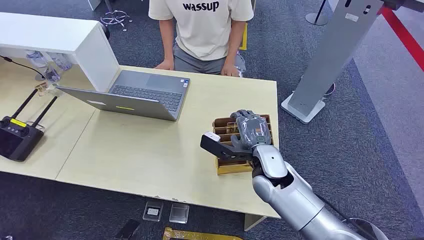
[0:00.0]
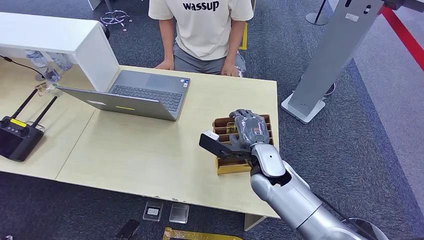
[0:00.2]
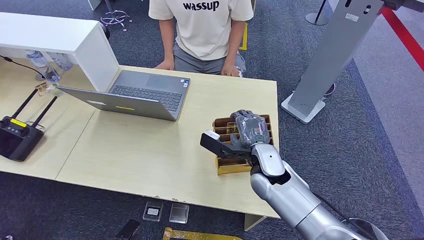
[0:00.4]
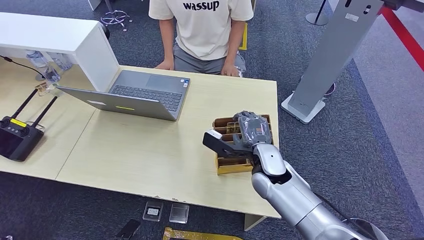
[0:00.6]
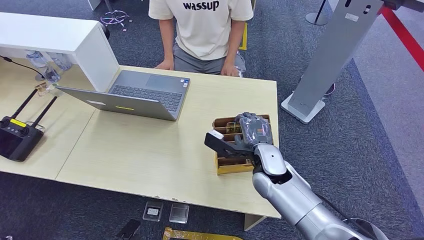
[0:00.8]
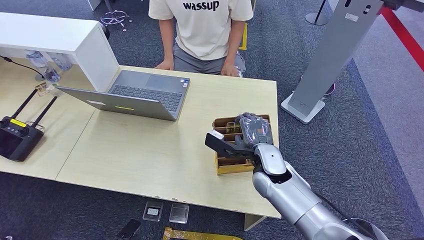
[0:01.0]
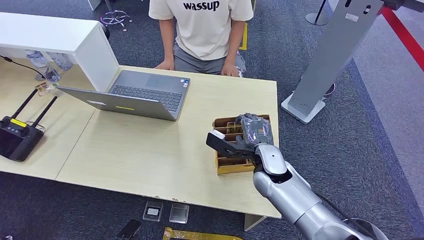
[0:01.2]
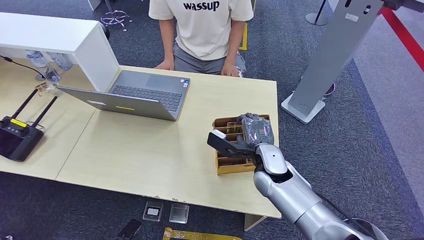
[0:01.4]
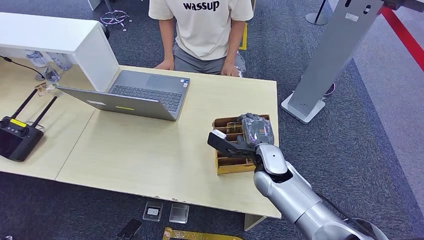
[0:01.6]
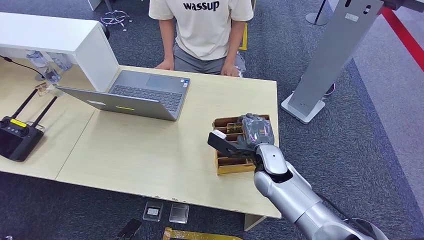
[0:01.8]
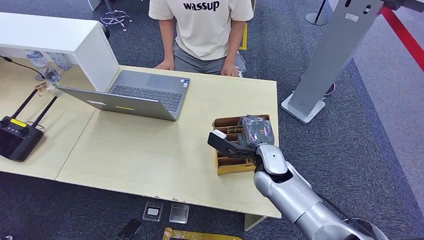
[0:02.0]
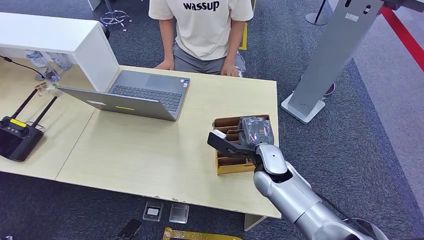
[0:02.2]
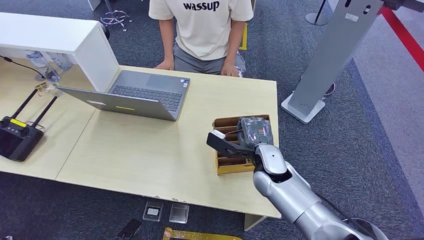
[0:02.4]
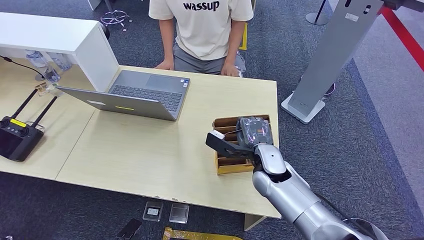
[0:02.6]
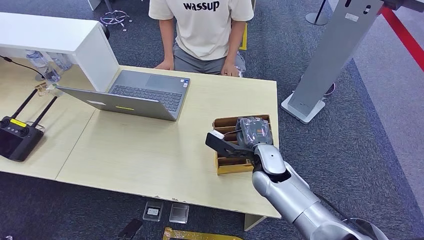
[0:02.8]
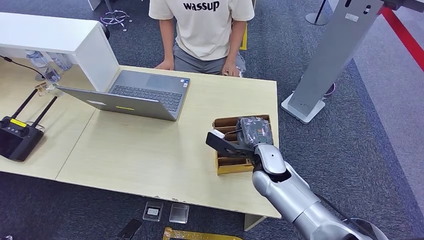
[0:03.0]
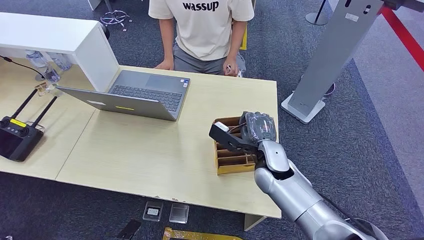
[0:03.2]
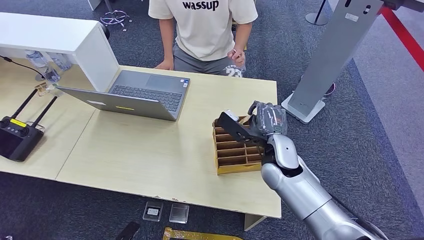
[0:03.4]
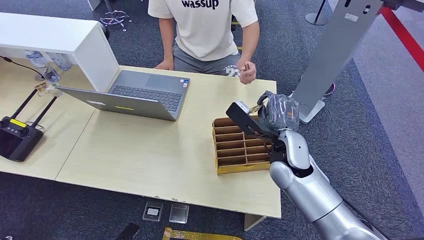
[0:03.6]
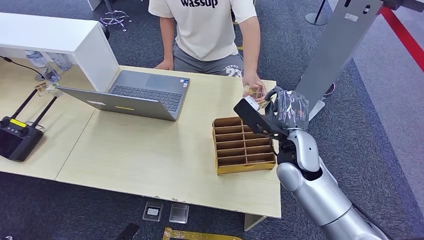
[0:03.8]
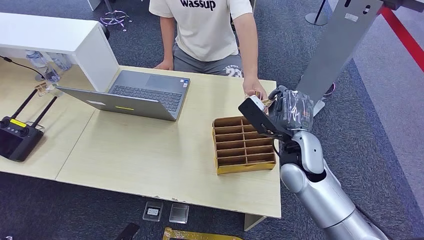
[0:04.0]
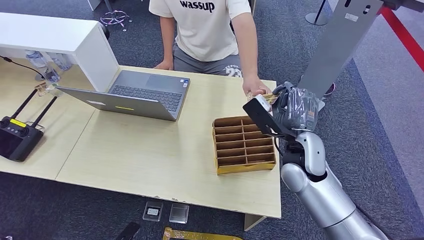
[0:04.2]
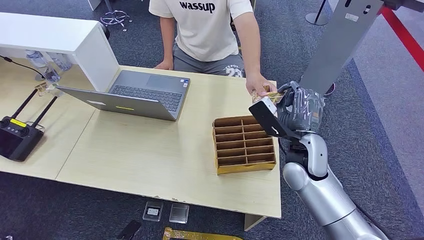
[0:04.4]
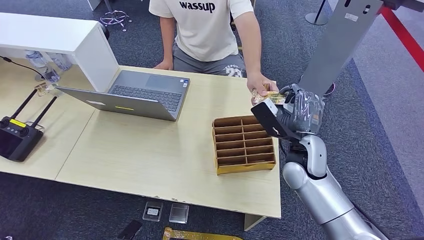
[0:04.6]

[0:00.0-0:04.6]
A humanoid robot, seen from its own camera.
Step, 0:00.0 to 0:03.4: Pick up the key card from the card box.
Step, 0:03.8 to 0:04.6: Hand the key card to the target.
0:01.6 to 0:03.0: Both hands stay about where they are.
0:03.0 to 0:04.6: The right hand heads to the right and upward, covering about 10 cm.
